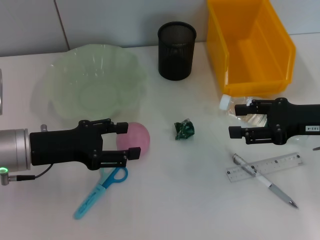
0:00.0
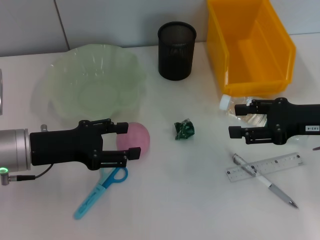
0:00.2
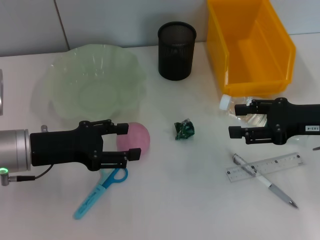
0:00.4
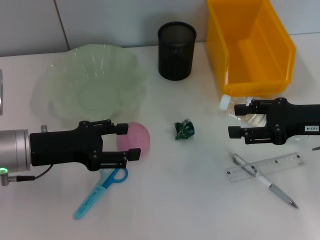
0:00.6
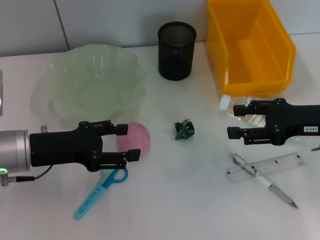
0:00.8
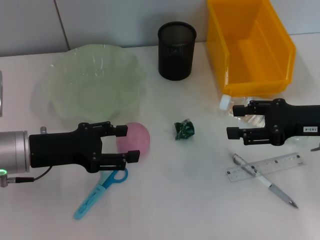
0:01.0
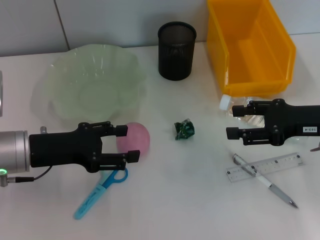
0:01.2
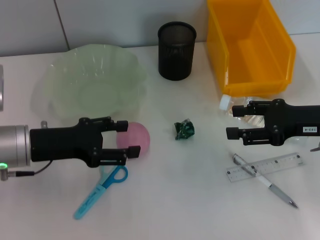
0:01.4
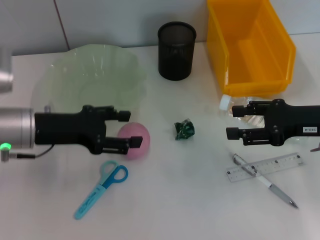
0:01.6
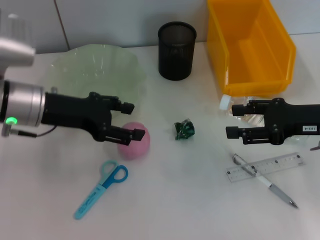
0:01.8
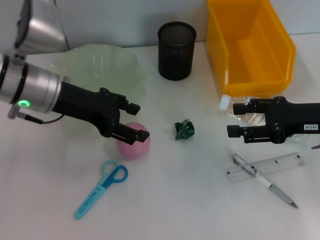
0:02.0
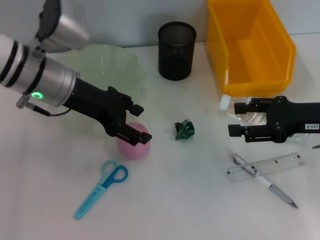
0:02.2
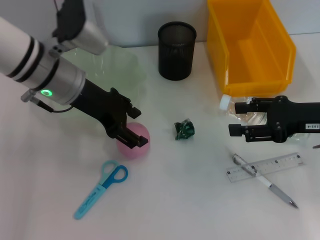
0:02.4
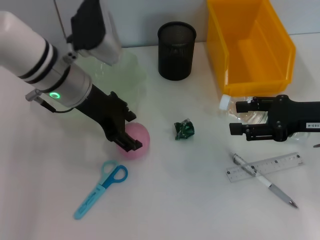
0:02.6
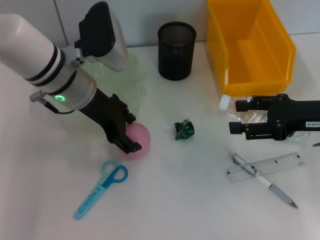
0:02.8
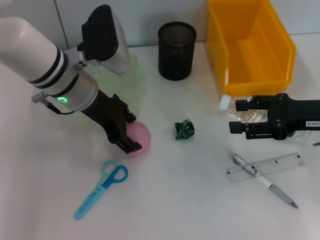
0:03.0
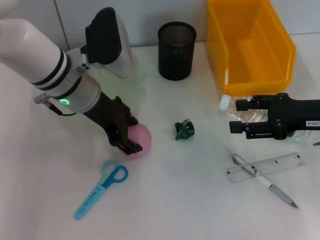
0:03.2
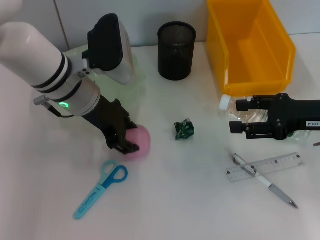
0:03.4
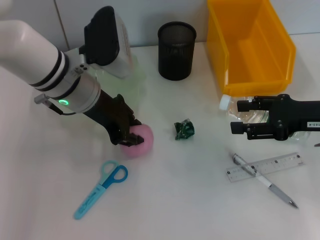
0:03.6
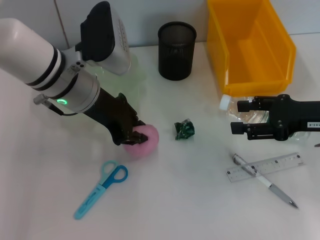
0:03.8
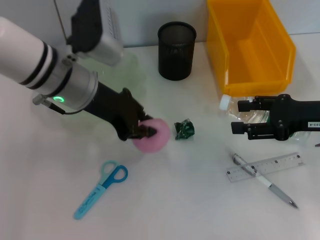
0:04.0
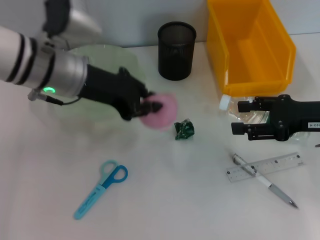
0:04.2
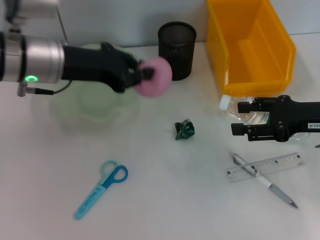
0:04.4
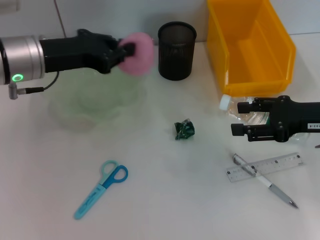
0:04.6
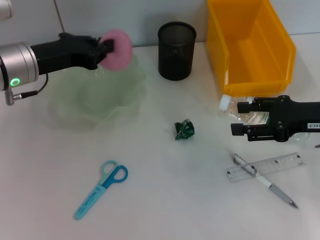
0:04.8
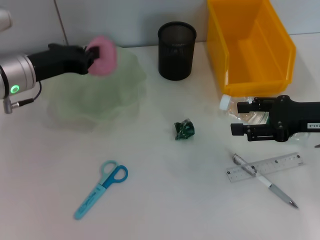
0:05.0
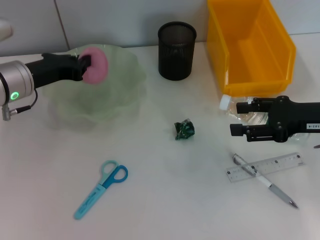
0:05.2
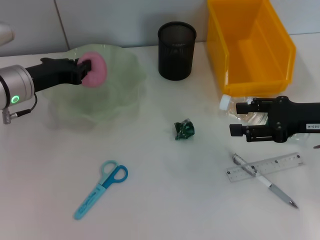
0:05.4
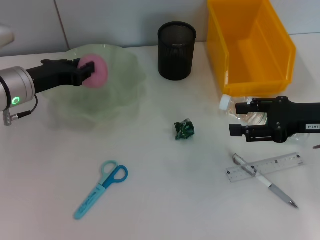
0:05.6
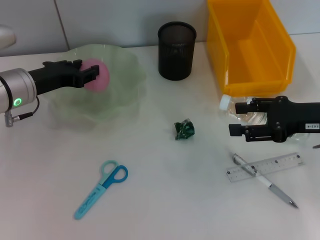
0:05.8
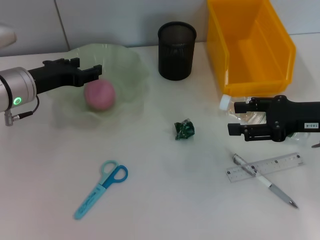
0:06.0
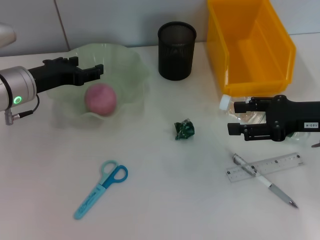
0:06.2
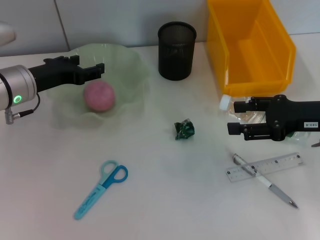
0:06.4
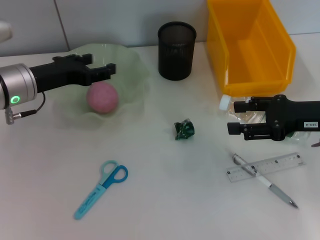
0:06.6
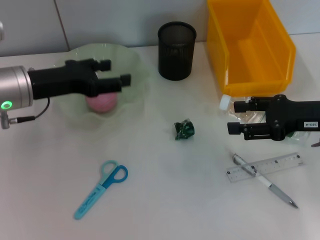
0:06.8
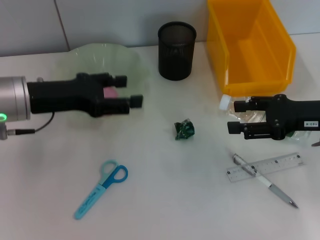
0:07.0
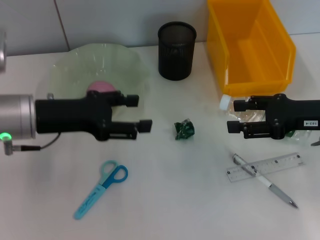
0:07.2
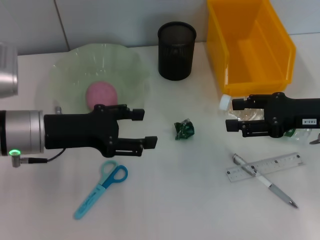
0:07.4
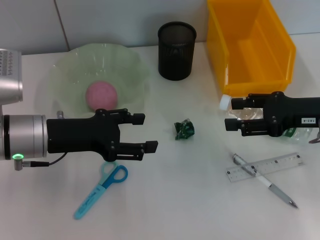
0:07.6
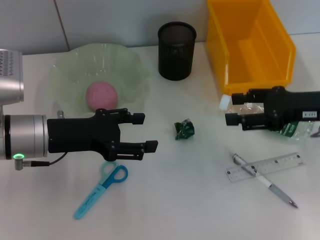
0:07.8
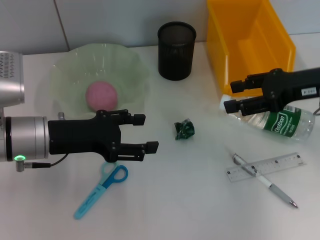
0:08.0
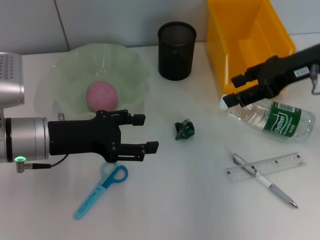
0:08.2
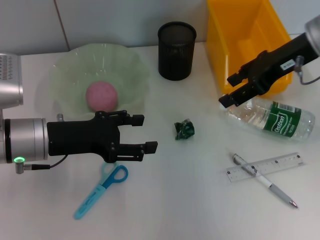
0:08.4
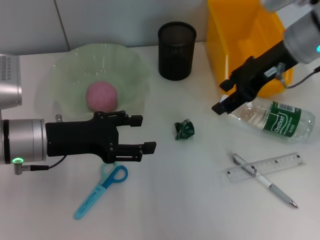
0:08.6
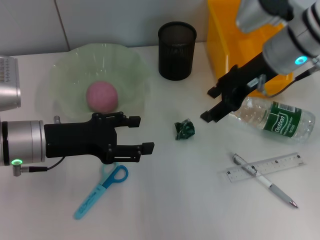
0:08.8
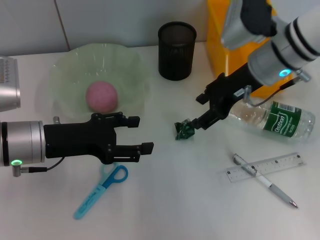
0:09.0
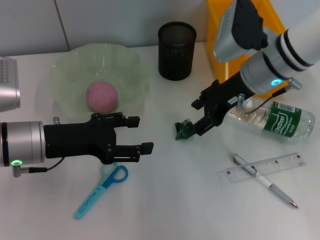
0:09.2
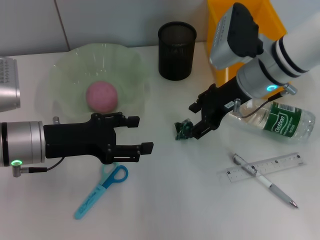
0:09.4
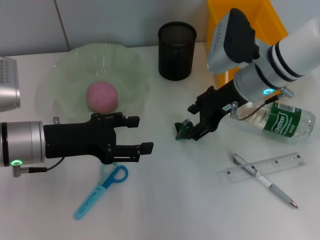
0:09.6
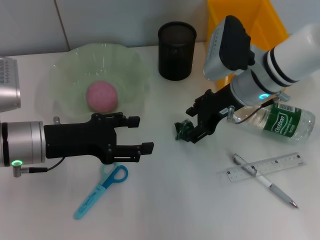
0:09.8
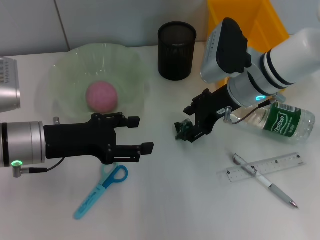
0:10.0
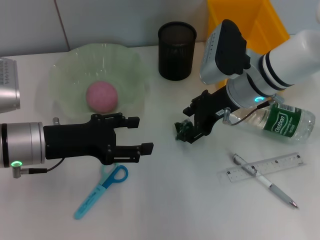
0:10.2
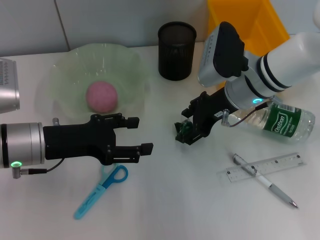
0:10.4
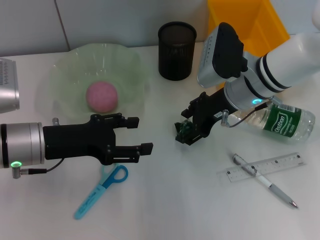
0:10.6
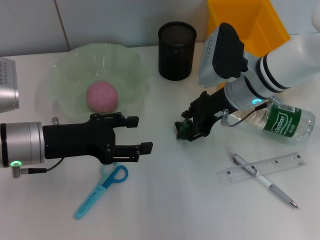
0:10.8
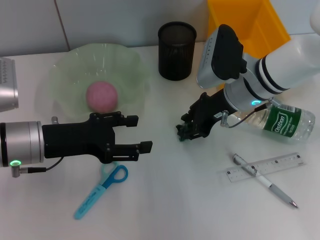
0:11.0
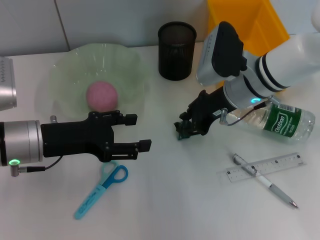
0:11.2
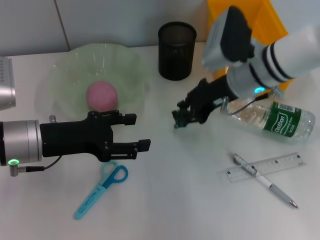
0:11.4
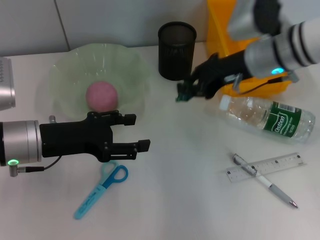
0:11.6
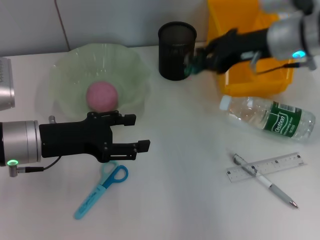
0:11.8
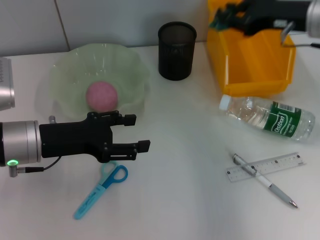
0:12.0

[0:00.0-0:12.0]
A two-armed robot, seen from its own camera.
Step, 0:00.0 to 0:03.6: Grab the peach with the left hand.
Step, 0:03.8 to 0:05.8: Place the peach into the fruit bowl with the left hand.
Step, 0:06.2 to 0:11.0: Grab the plastic with the right hand.
0:00.0 to 0:01.6: The grippers stay close to where they were, moving slightly.
0:01.6 to 0:03.0: The left gripper travels to the right and forward by about 10 cm.
0:03.0 to 0:04.4: The left gripper travels to the left by about 5 cm, and closes up.
0:04.4 to 0:06.0: The left gripper travels downward and to the left by roughly 10 cm, and opens.
0:06.0 to 0:07.6: The left gripper shifts roughly 10 cm backward, and opens up.
0:07.6 to 0:09.0: The right gripper heads to the left and forward, covering about 15 cm.
0:09.0 to 0:10.4: The right gripper travels downward by roughly 5 cm.
0:10.4 to 0:12.0: The right gripper travels to the right and upward by approximately 15 cm, and closes its fingers.

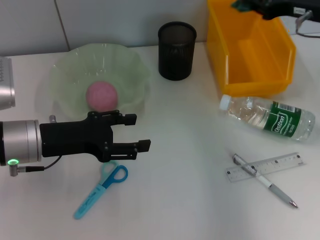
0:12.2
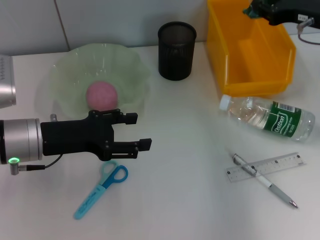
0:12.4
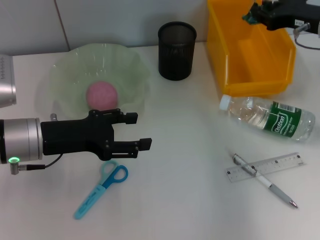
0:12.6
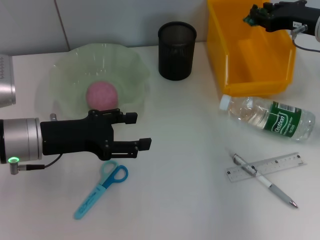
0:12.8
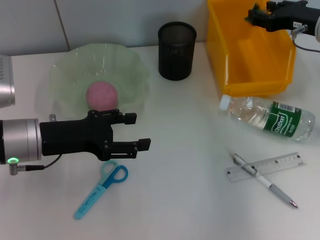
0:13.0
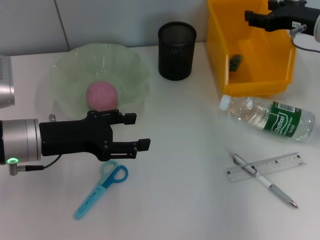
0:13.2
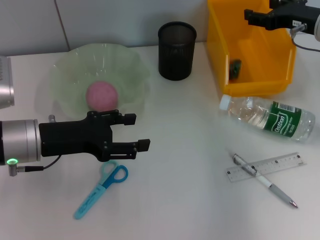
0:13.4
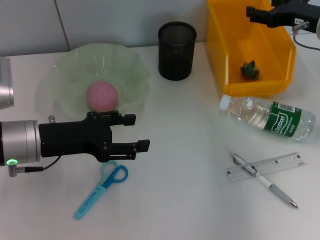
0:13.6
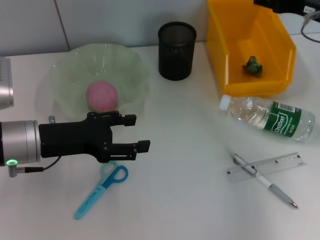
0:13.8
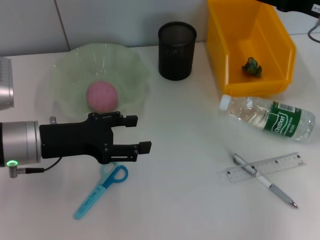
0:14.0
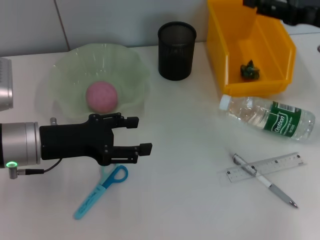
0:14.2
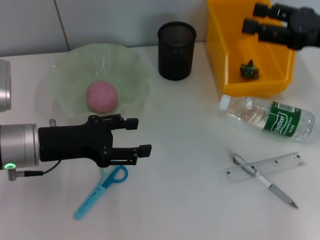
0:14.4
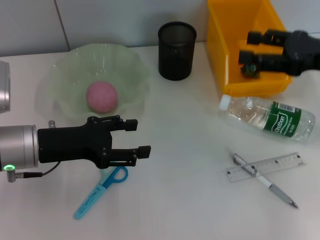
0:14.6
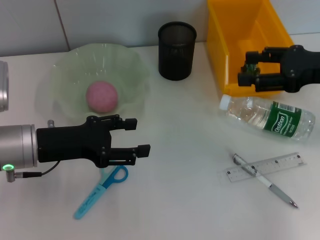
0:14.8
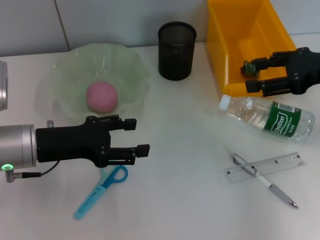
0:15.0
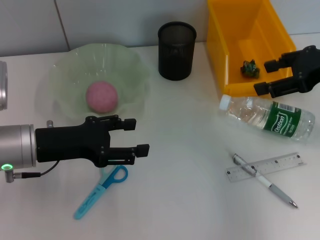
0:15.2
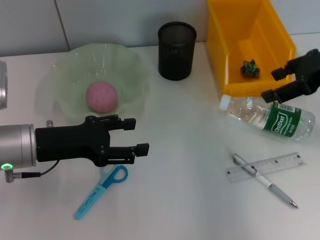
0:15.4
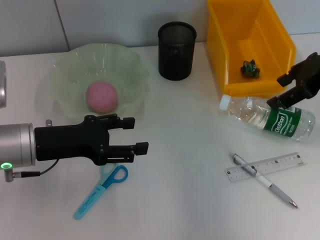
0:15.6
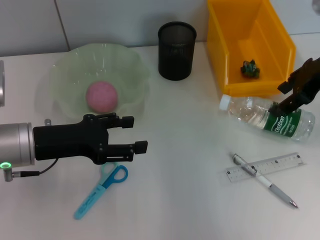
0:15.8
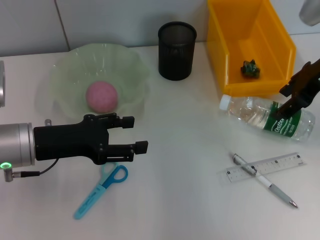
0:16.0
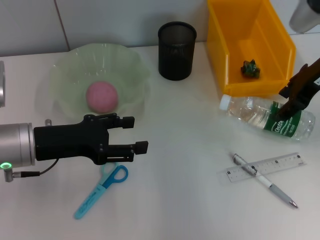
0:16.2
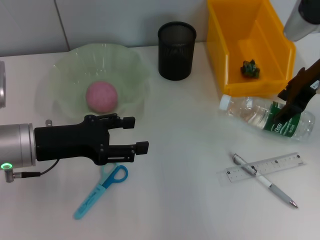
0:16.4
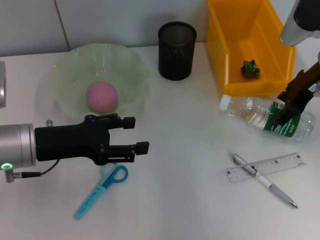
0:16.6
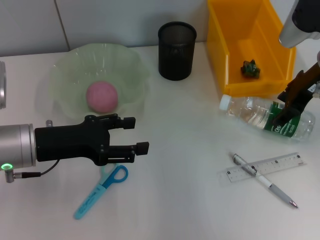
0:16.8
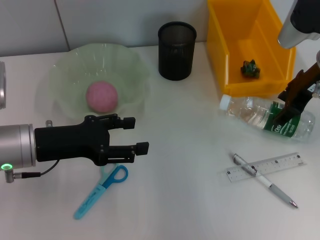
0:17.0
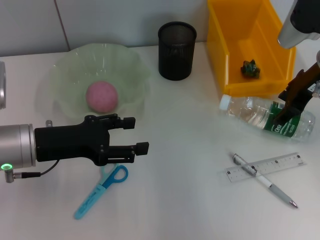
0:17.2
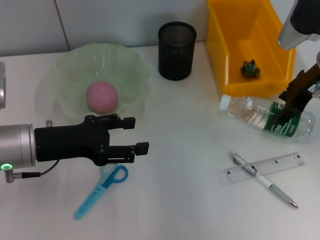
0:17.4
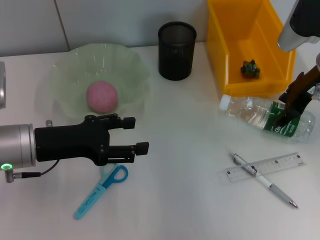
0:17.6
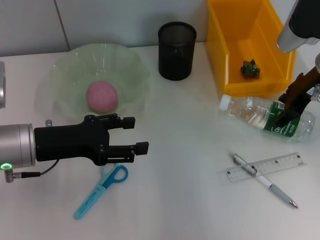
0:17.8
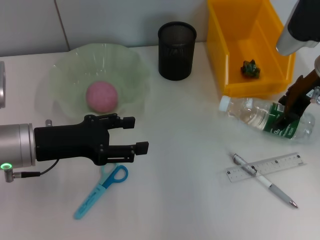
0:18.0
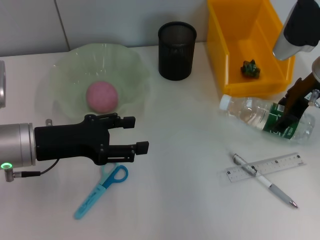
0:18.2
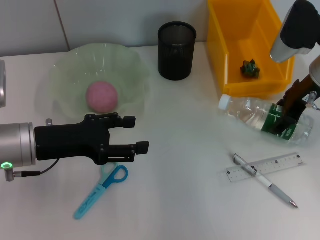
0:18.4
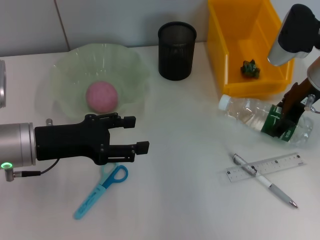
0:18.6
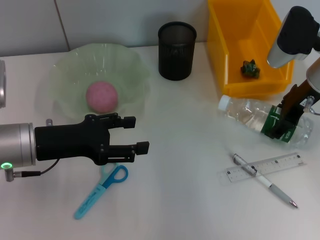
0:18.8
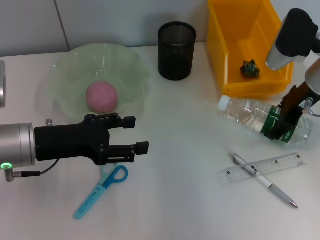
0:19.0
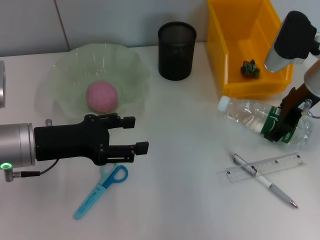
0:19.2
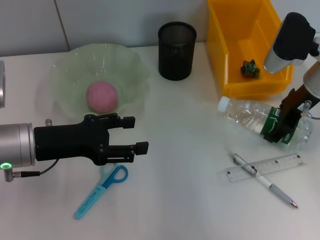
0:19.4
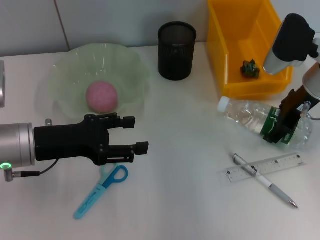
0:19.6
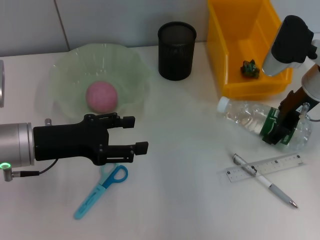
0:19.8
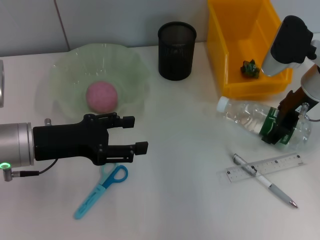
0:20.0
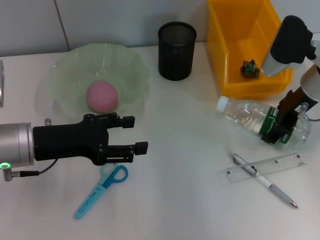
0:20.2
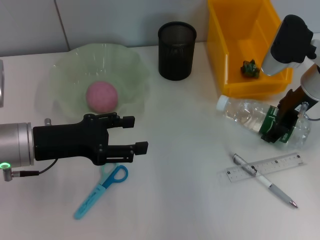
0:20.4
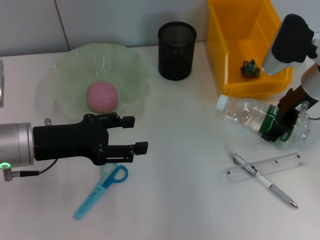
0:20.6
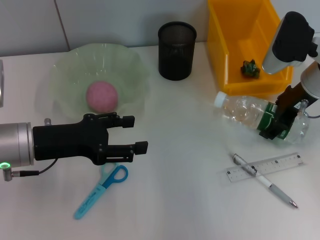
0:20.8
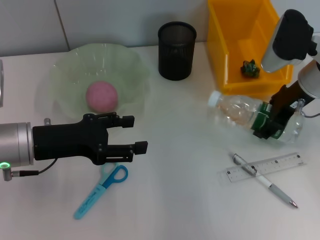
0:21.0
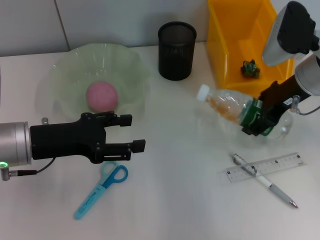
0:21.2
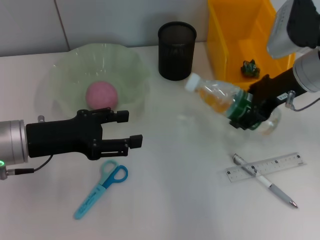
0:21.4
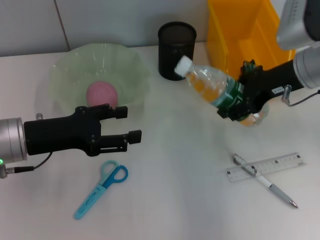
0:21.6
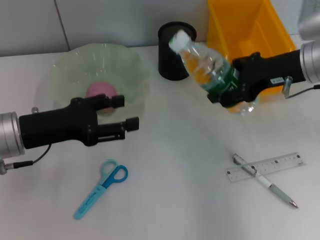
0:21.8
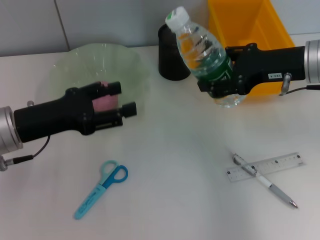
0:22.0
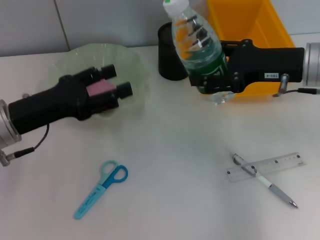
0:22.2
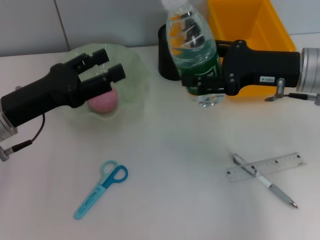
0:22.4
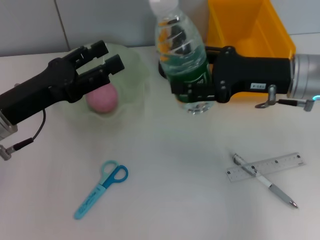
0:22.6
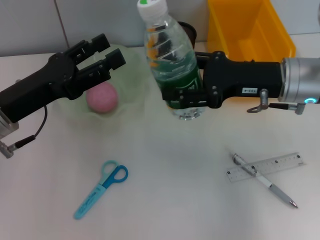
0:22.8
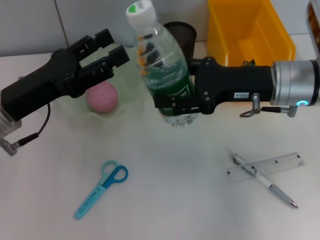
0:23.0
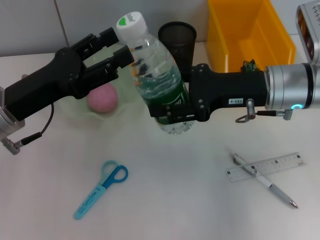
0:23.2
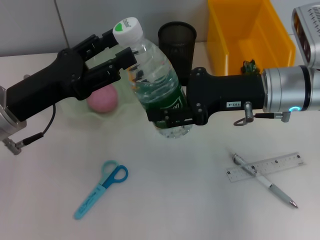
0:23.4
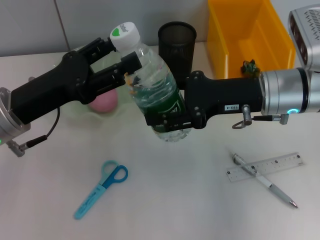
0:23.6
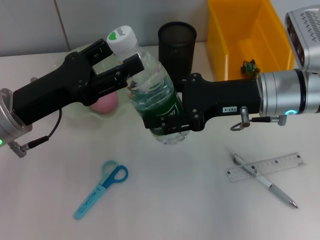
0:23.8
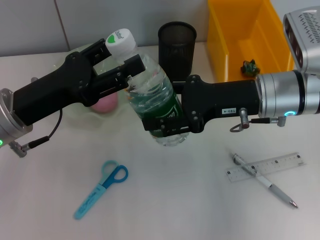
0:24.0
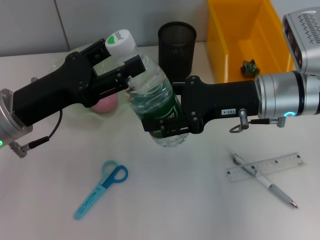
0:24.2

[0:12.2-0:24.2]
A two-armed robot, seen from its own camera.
Step, 0:13.2 to 0:20.6: Grab the water bottle with the right hand.
0:12.2 to 0:13.8: The right gripper opens.
0:13.8 to 0:15.2: The right gripper is displaced backward by some 5 cm.
0:15.2 to 0:16.6: The right gripper moves some 5 cm.
0:16.6 to 0:21.2: The grippers stay close to where they were, moving slightly.
